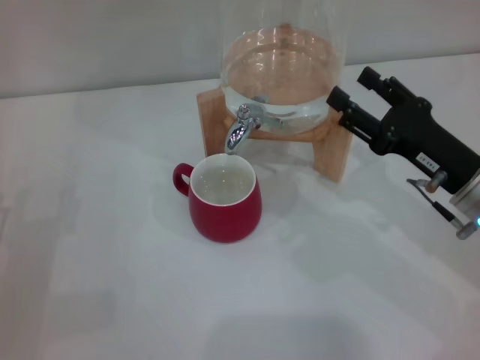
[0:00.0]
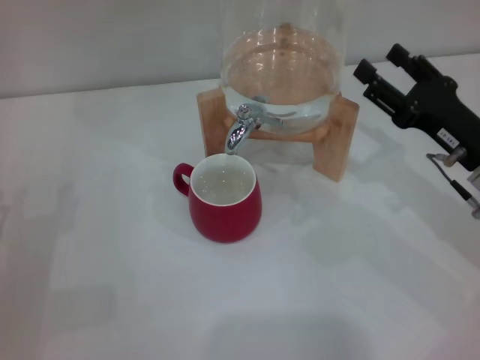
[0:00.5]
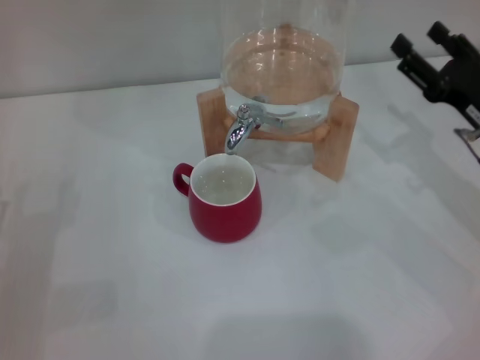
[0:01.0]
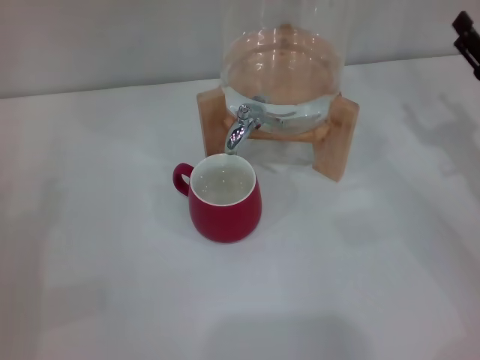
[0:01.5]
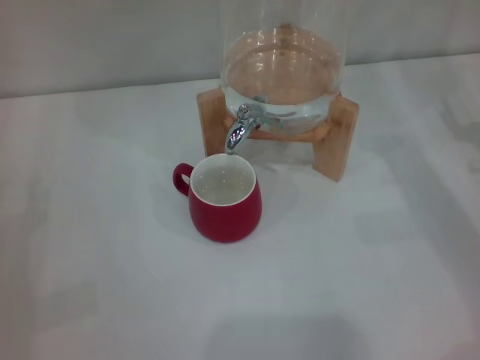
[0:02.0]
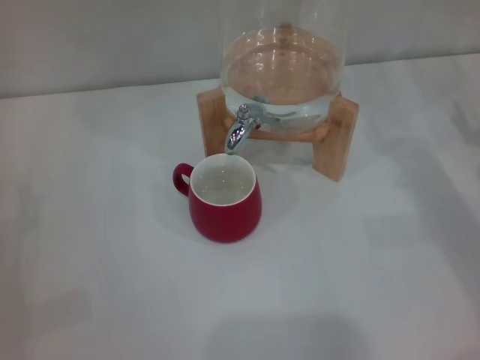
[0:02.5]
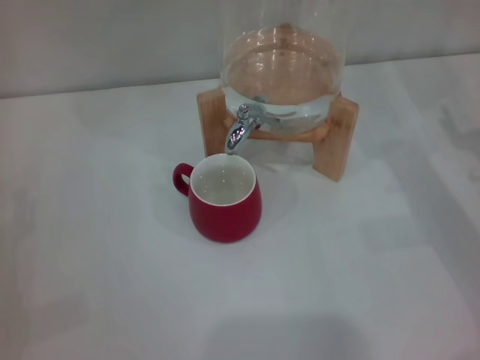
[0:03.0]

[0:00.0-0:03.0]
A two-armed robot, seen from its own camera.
Task of the whole recording: the left gripper pick up the red cup and place it horizontally under the faucet, the right gripper turn on the faucet to fill the cup, and then turn off the faucet.
0:00.0 to 0:01.5: The right gripper goes about 10 cm to the right.

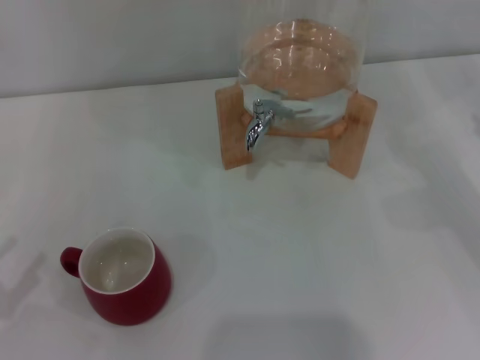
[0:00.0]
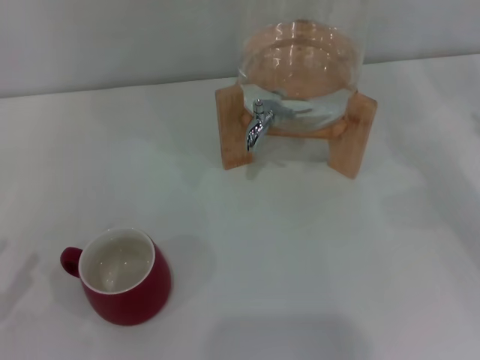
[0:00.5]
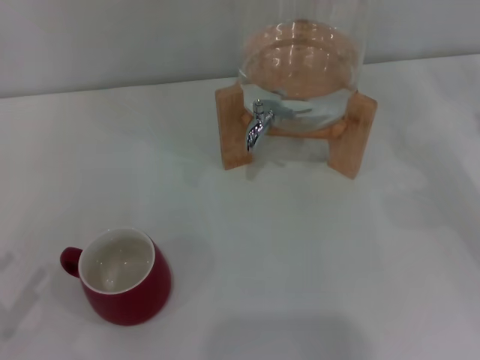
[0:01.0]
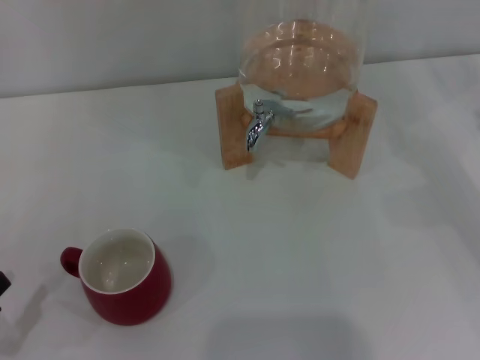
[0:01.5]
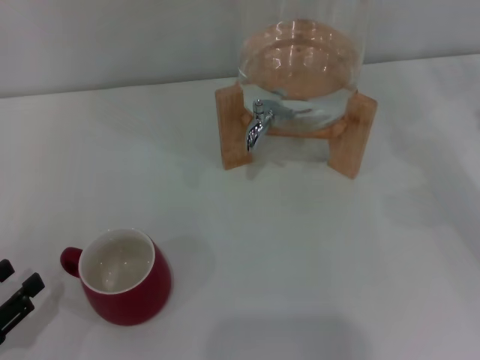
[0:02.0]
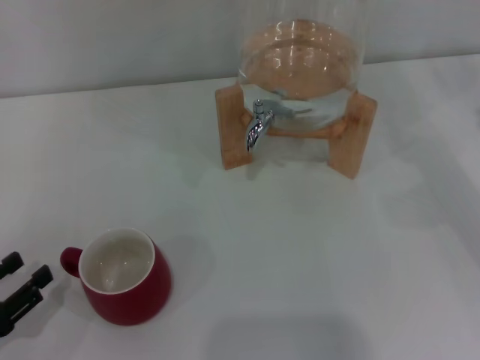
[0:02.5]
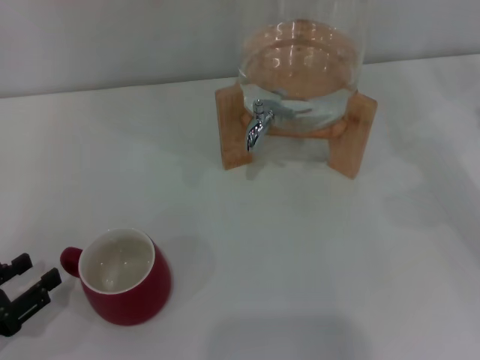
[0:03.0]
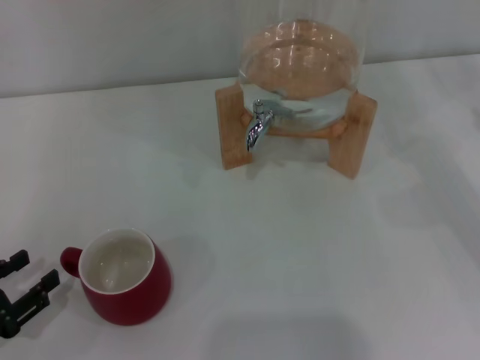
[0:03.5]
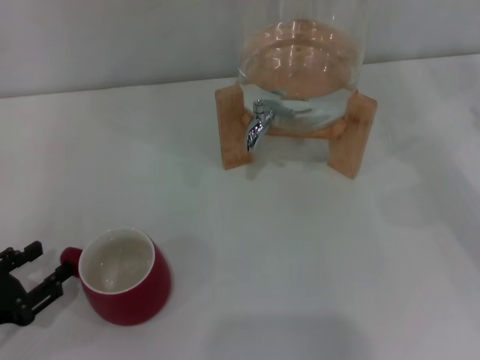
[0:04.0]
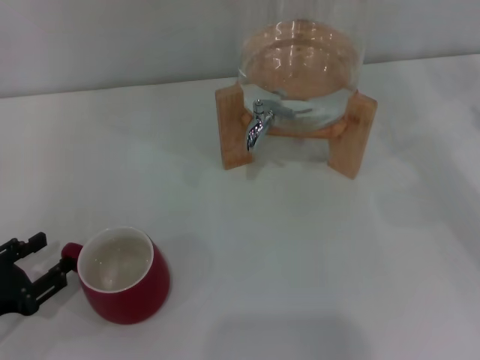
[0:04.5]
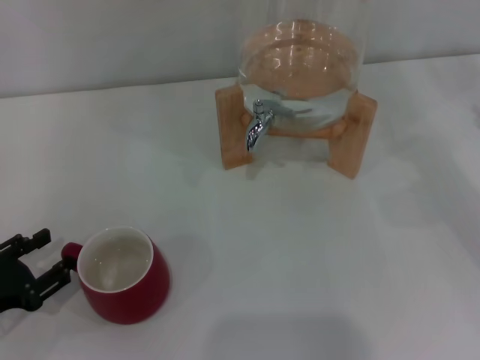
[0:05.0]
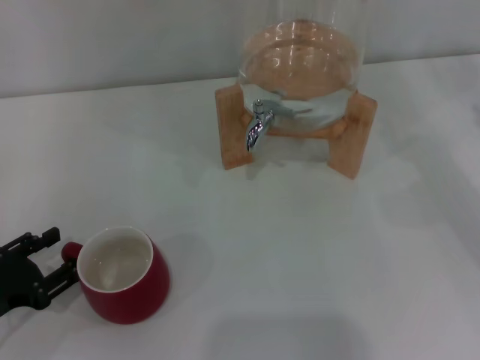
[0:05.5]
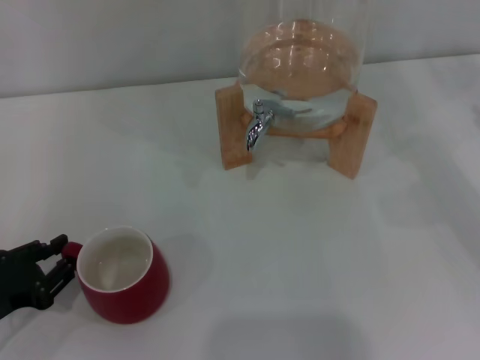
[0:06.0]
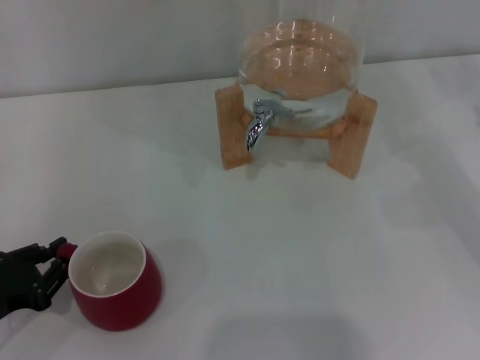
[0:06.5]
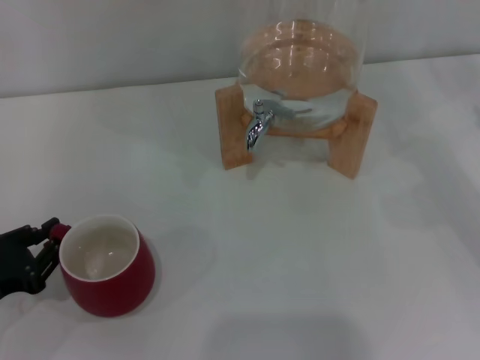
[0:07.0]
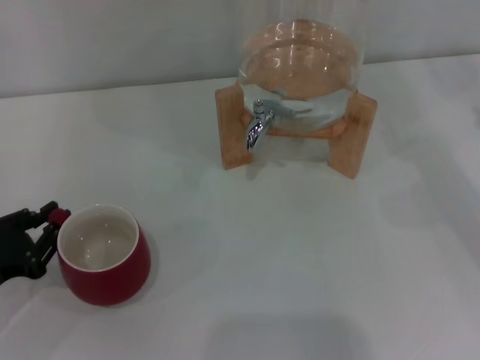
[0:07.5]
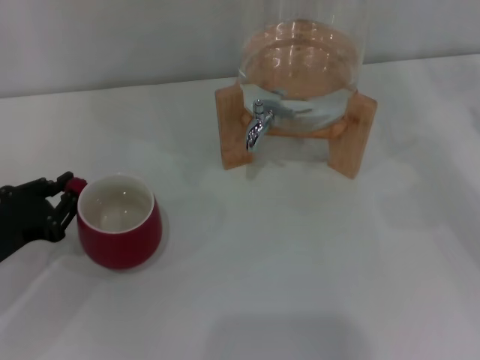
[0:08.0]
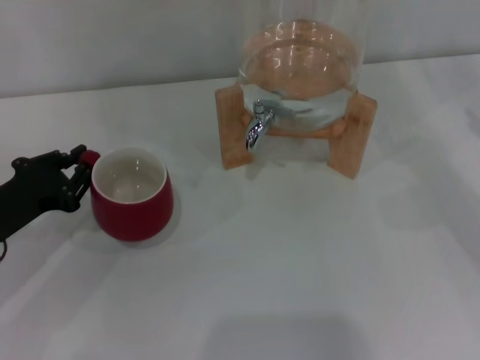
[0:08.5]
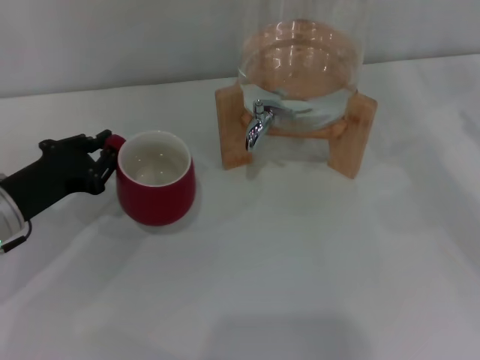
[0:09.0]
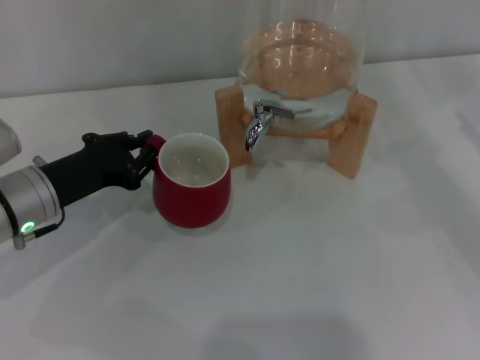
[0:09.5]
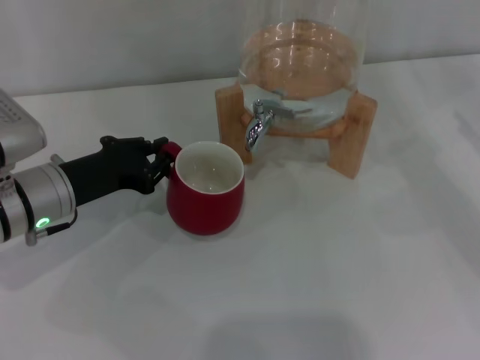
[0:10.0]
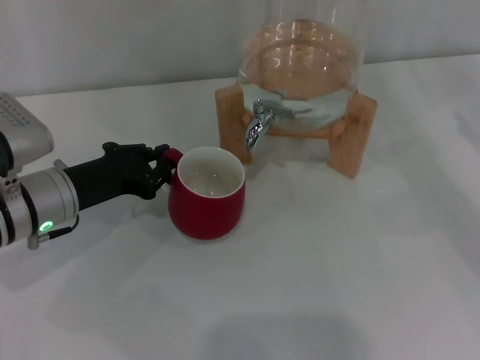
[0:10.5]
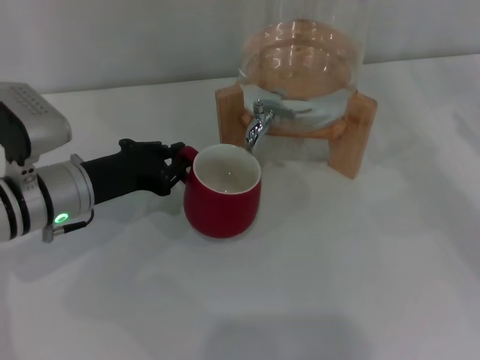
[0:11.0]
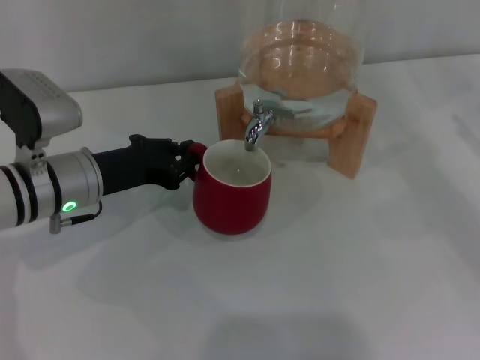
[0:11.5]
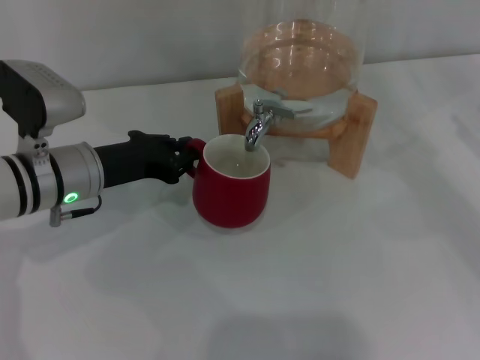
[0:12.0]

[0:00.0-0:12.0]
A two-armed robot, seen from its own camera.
Task of the whole recording: the left gripper pick up the red cup and place it horizontally under the faucet, the right gripper turn on the faucet to fill the cup, and then turn off the faucet.
0:00.0 to 0:02.0: The left gripper is displaced downward by roughly 5 cm.
0:02.0 to 0:04.0: There are only small adjustments of the grippers.
0:04.0 to 0:06.0: The grippers move only a little.
0:06.0 to 0:08.0: The left gripper moves about 5 cm, and closes.
0:08.0 to 0:10.0: The left gripper heads to the right and forward, covering some 10 cm.
0:10.0 to 0:12.0: There are only small adjustments of the grippers.

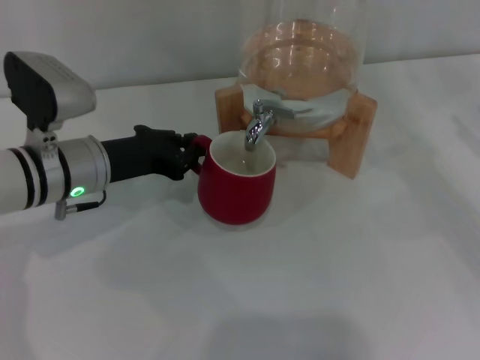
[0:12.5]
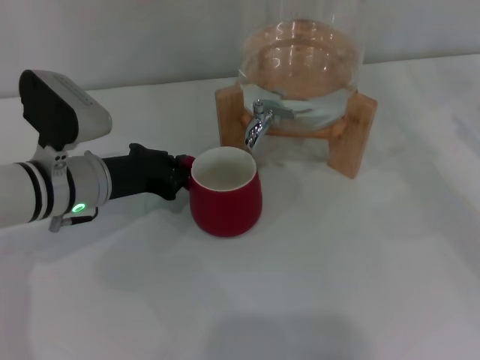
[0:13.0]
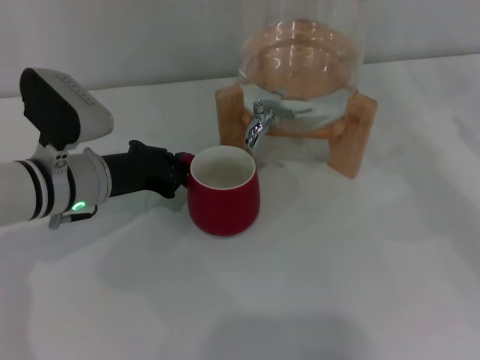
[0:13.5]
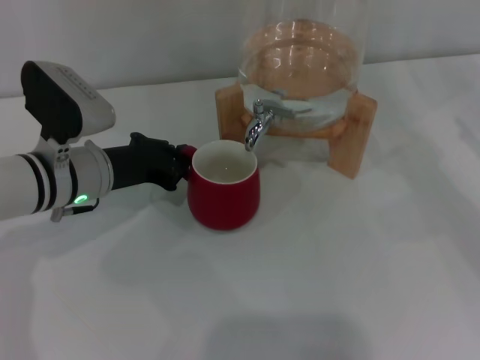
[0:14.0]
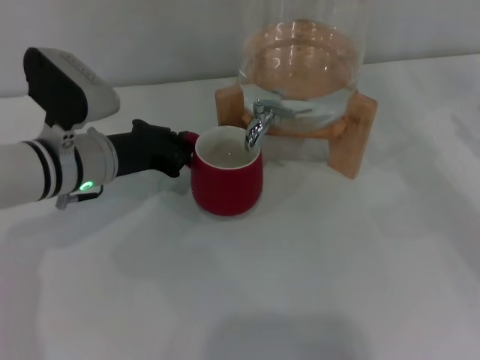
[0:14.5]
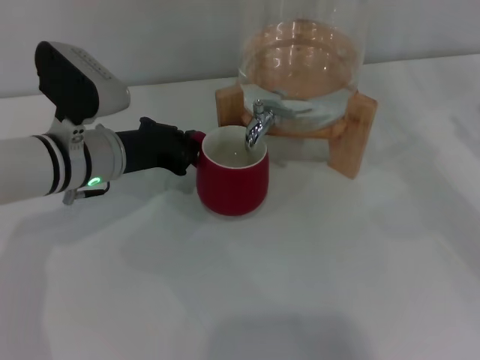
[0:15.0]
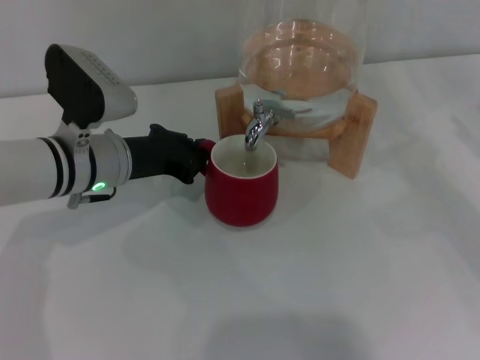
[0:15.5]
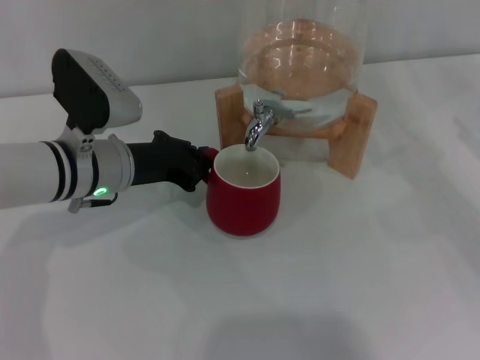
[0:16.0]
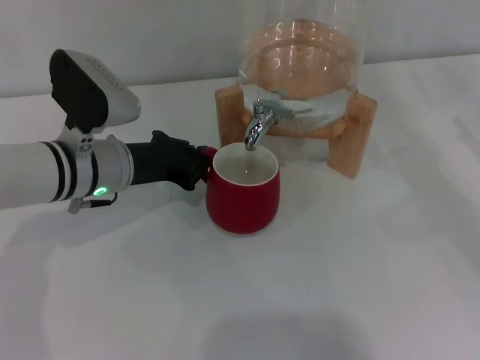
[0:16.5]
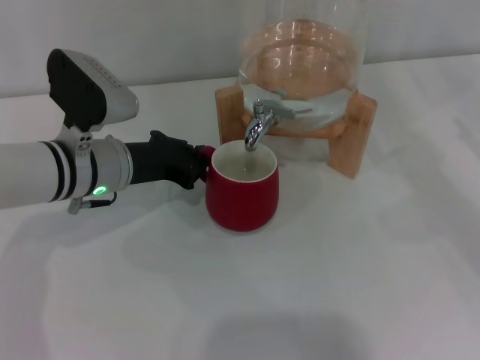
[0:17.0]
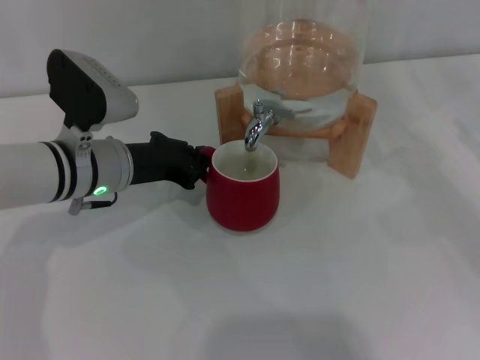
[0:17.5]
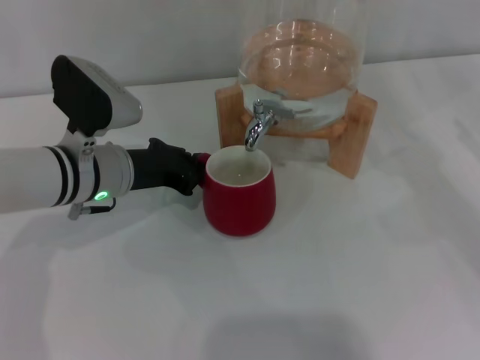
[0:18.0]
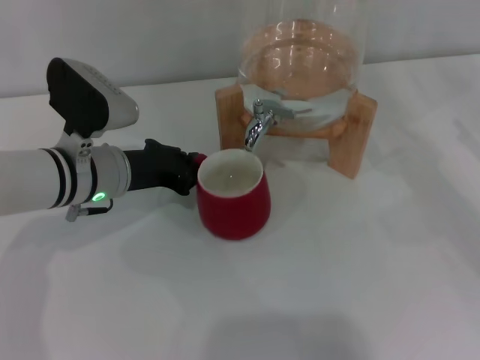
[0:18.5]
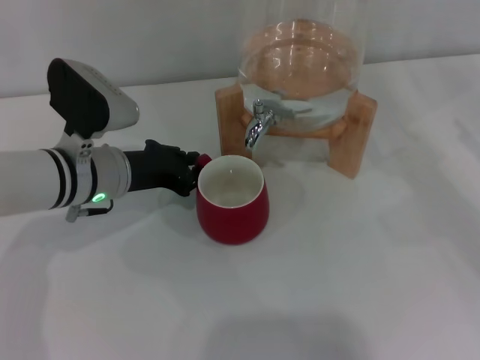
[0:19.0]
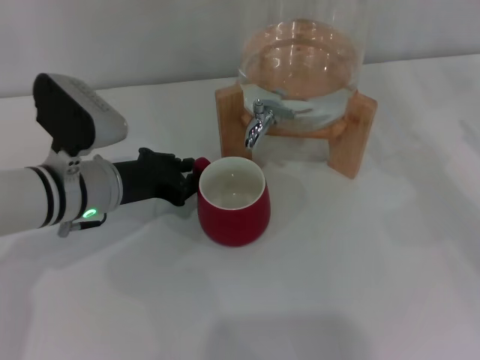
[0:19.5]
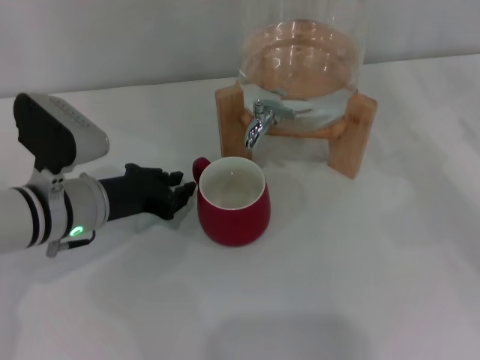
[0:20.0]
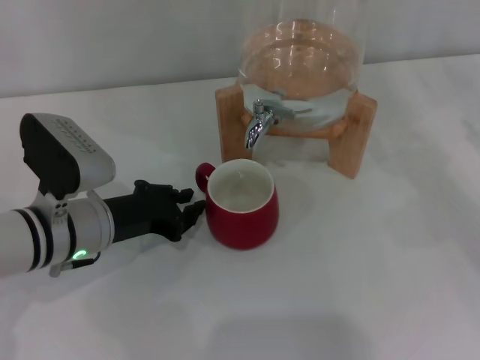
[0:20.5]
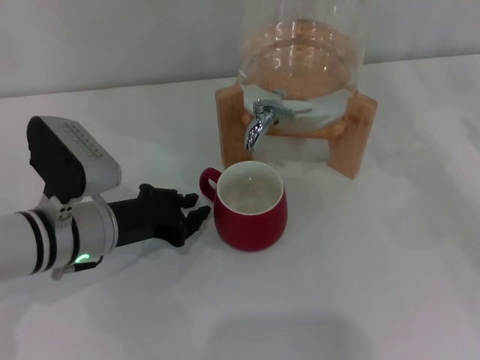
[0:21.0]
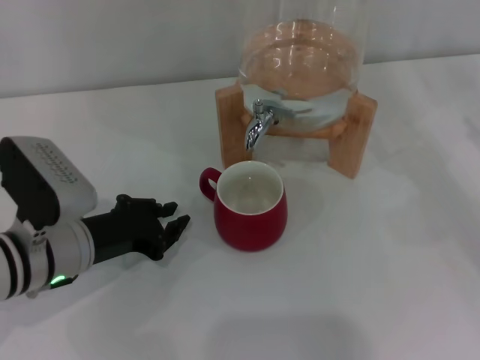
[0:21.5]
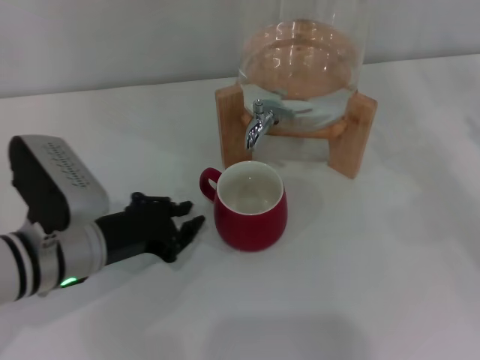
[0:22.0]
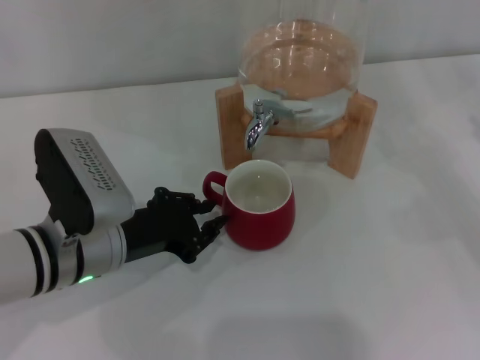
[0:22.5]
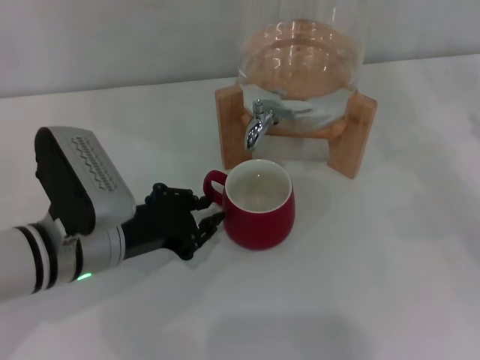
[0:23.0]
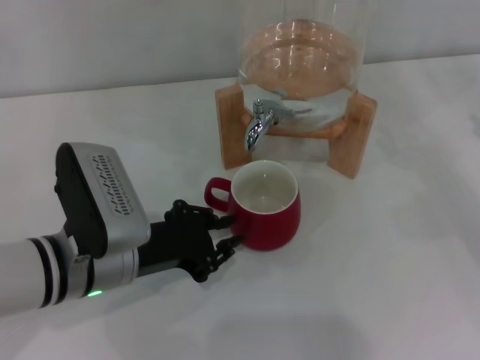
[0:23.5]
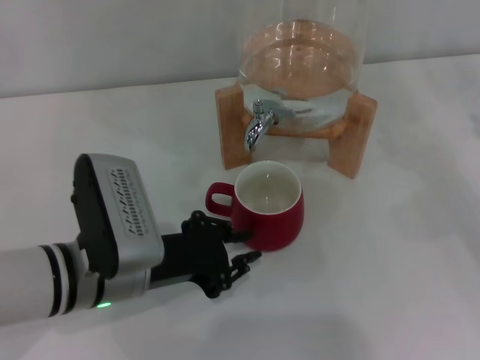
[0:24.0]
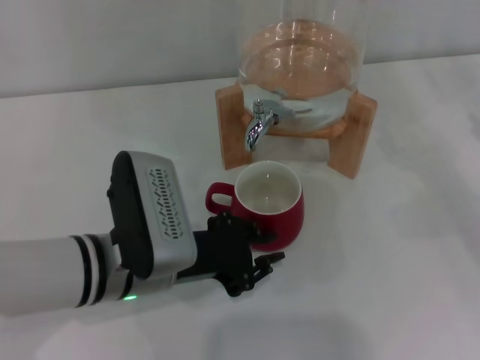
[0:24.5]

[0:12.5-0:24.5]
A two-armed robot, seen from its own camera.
Task of the whole recording: the left gripper pick up the red cup and place it horizontally under the faucet, the right gripper turn on the faucet to fill the cup, and then turn off the faucet.
0:12.5 to 0:16.5: The grippers make only small movements.
0:16.5 to 0:18.5: Neither gripper changes place.
0:18.5 to 0:20.5: The left gripper is displaced backward by some 5 cm.
0:20.5 to 0:22.5: The grippers move only a little.
0:22.5 to 0:24.5: The grippers stay close to where they were, moving slightly.
